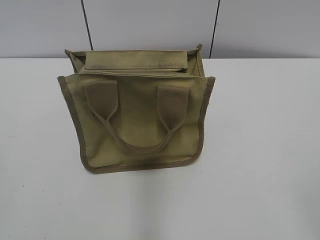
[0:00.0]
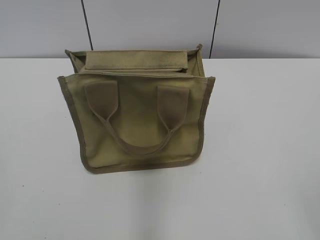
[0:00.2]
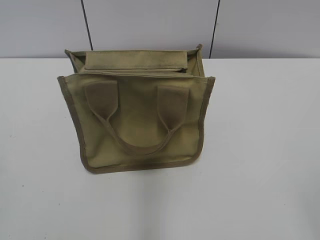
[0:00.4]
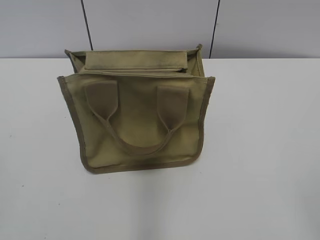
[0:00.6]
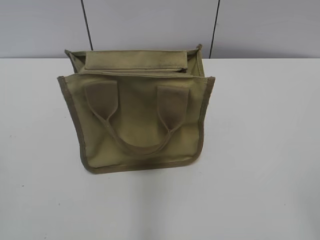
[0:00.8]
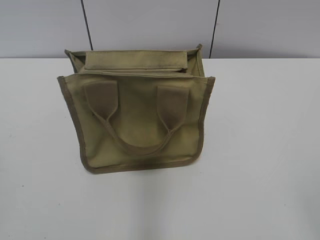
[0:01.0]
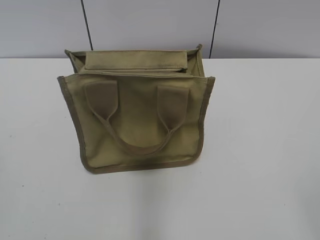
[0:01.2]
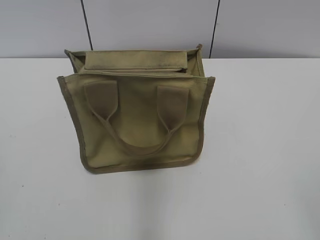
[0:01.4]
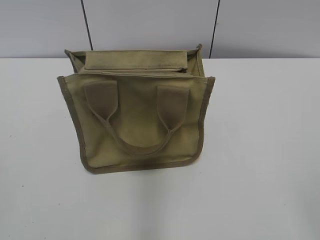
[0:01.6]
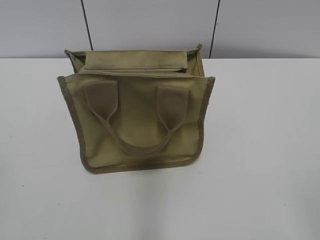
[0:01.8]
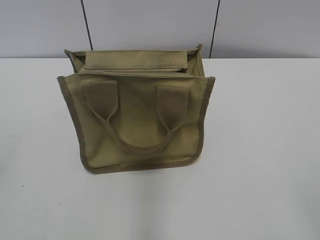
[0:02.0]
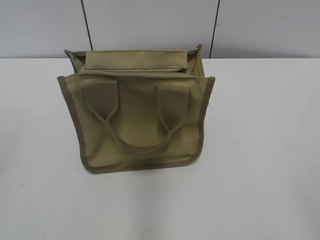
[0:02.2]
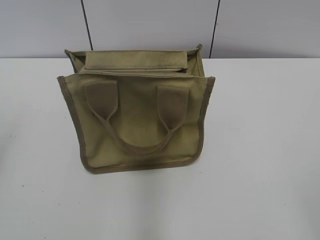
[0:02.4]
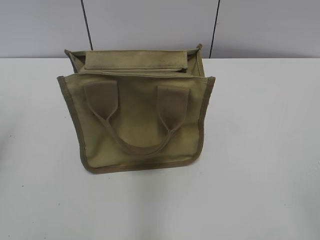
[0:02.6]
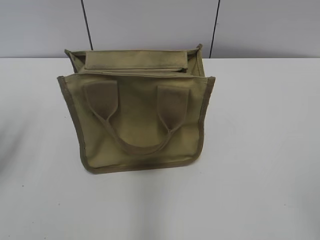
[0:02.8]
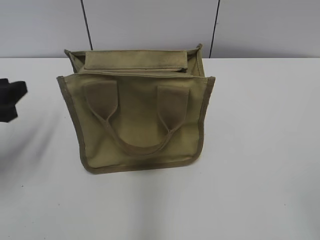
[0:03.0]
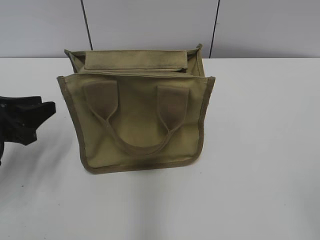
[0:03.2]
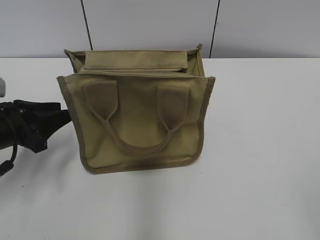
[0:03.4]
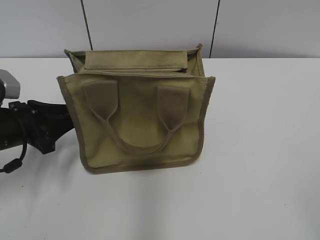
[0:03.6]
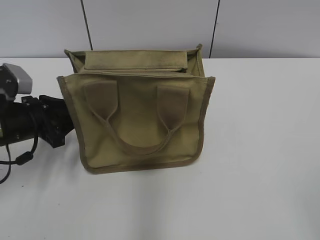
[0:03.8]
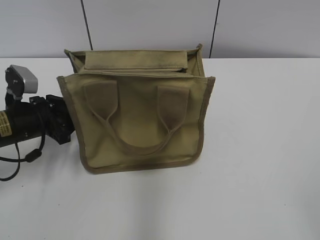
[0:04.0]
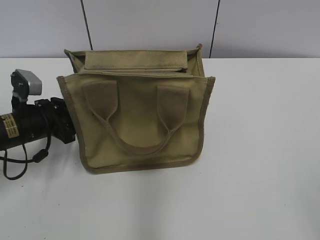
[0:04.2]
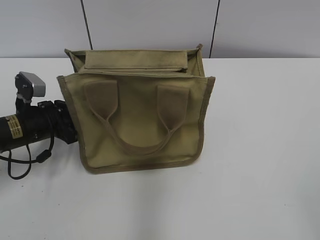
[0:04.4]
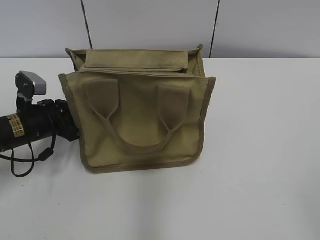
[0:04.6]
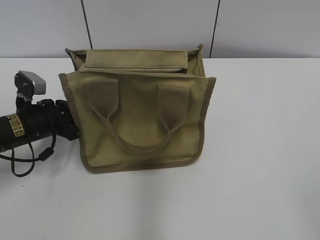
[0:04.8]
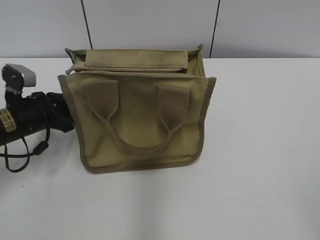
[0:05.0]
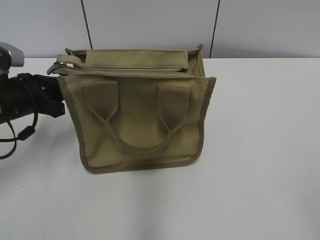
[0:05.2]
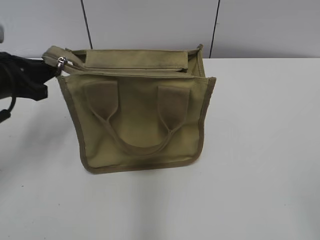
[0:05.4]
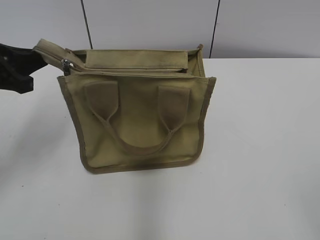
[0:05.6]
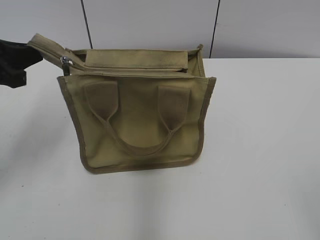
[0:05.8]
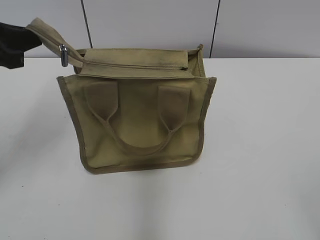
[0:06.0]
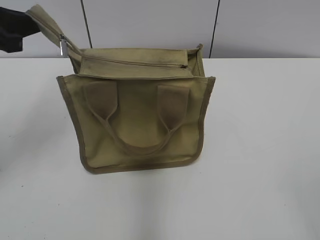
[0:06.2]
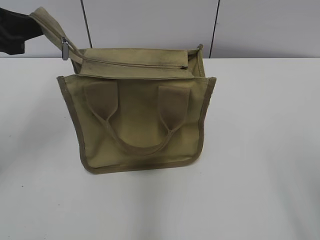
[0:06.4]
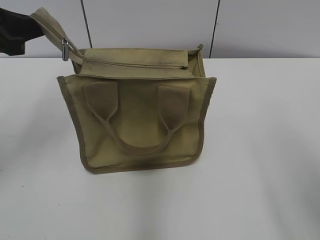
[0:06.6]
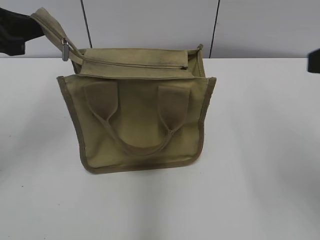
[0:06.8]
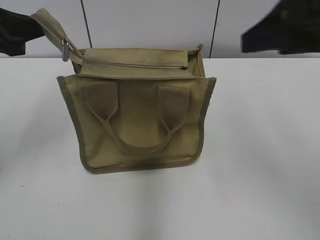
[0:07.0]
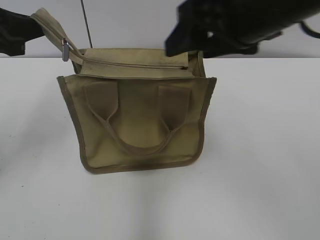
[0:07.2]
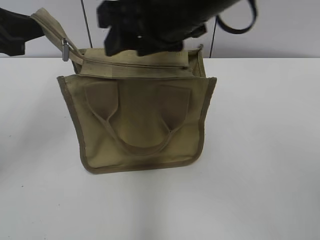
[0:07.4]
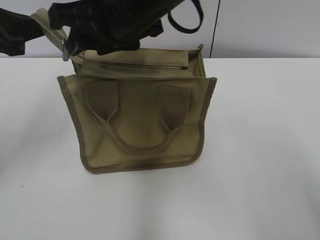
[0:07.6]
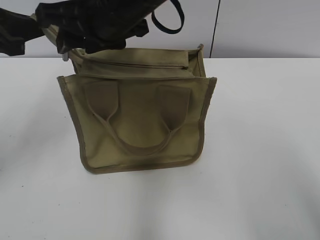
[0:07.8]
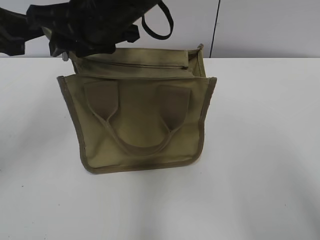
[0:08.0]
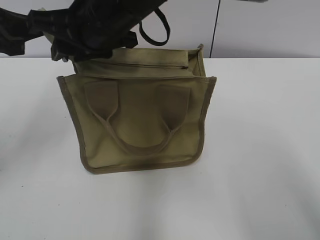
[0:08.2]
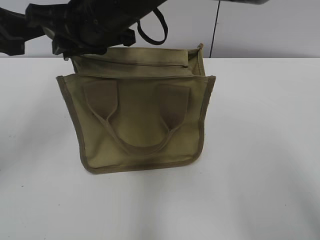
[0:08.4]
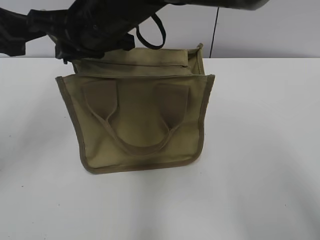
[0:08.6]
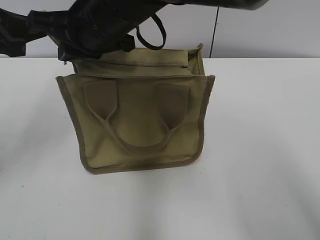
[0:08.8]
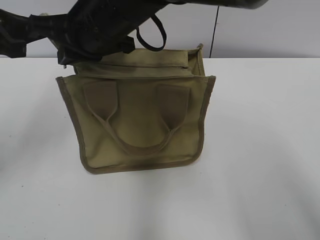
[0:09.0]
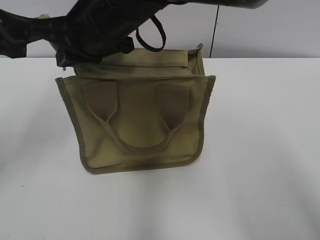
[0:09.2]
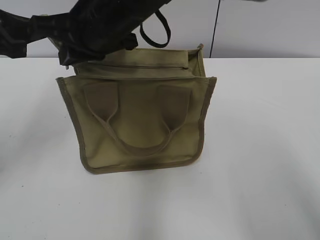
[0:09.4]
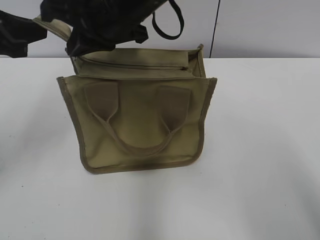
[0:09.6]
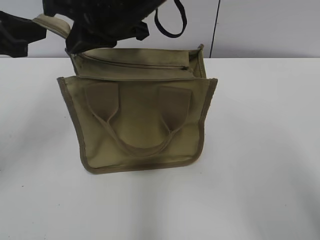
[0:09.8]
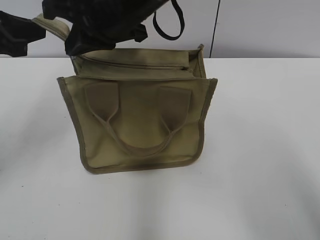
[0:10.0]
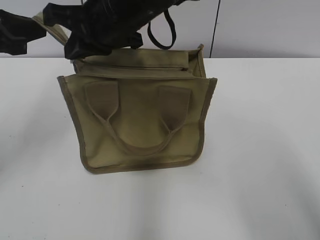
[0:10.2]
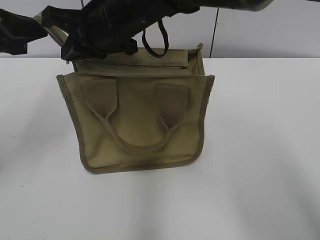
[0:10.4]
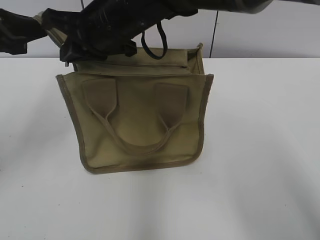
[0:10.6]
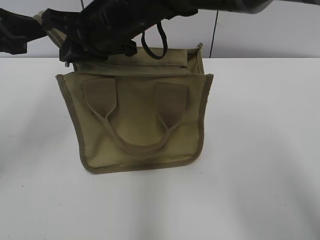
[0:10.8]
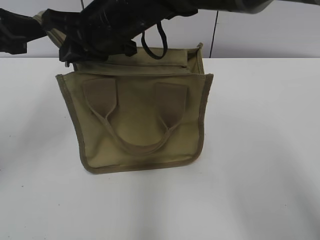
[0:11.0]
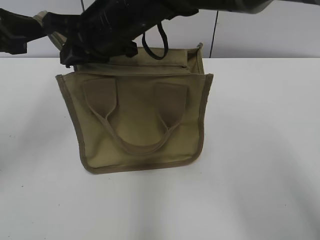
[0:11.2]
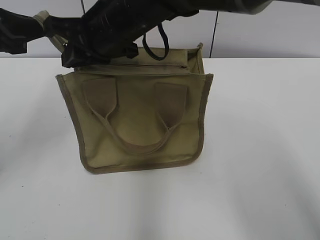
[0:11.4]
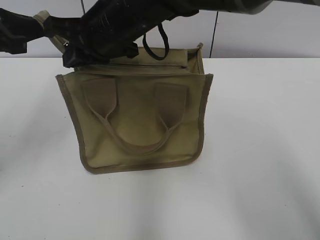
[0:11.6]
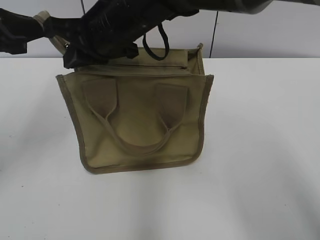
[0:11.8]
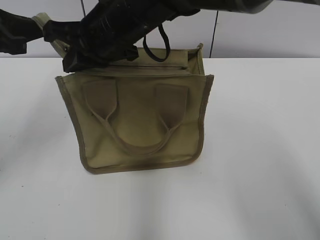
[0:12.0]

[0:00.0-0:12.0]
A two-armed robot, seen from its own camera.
0:01.6 to 0:03.0: The left gripper goes some 25 cm forward and downward, and opens, then closes once more.
0:03.0 to 0:04.4: The left gripper moves downward, forward and to the right, approximately 15 cm.
0:04.4 to 0:06.0: The left gripper heads upward, covering about 20 cm, and closes.
0:06.0 to 0:07.6: The right gripper shifts roughly 40 cm forward and to the left.
0:07.6 to 0:09.0: The right gripper changes place by about 5 cm, and closes its fingers.
0:09.0 to 0:12.0: The grippers stay close to where they were, moving slightly.

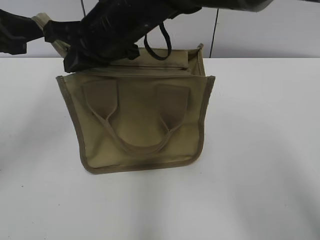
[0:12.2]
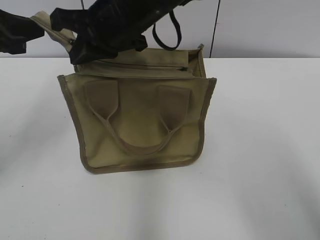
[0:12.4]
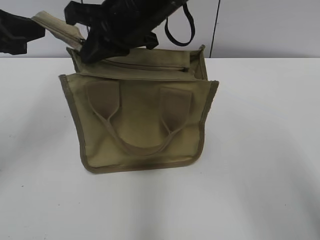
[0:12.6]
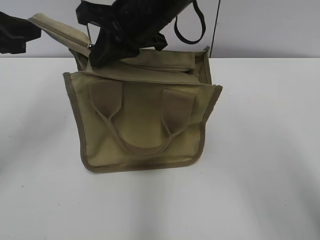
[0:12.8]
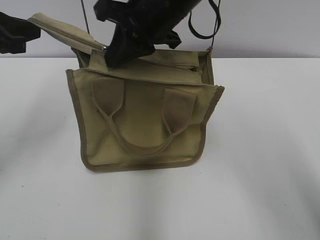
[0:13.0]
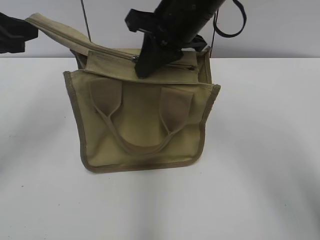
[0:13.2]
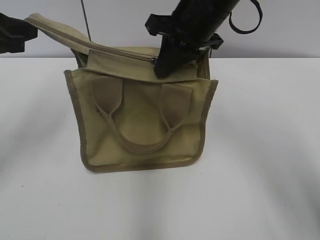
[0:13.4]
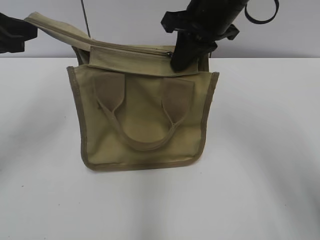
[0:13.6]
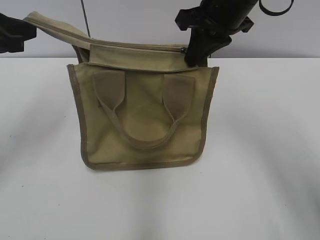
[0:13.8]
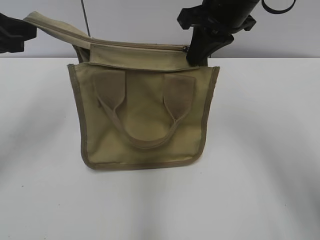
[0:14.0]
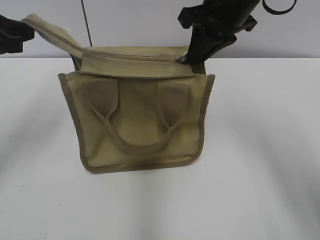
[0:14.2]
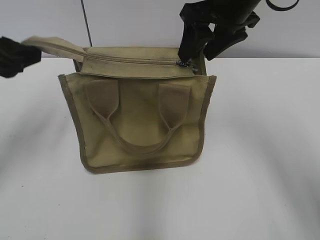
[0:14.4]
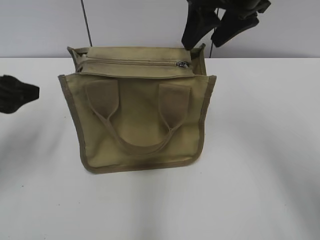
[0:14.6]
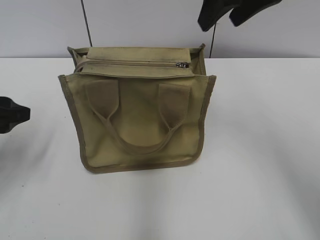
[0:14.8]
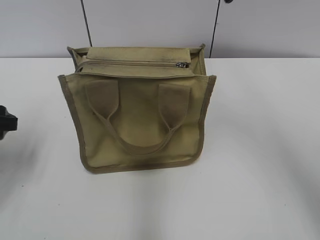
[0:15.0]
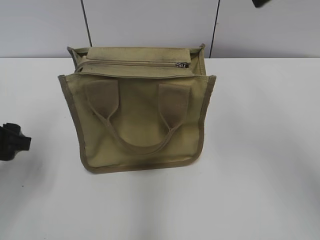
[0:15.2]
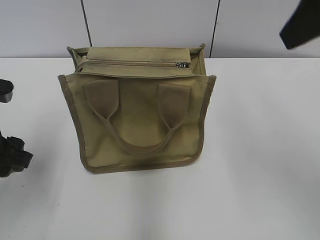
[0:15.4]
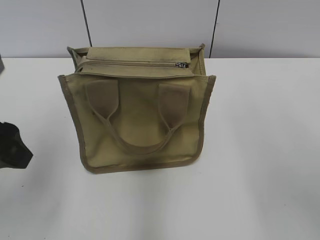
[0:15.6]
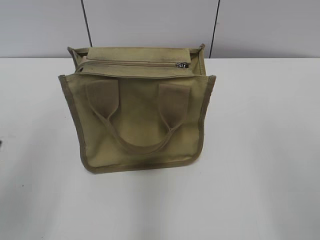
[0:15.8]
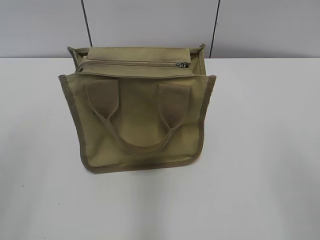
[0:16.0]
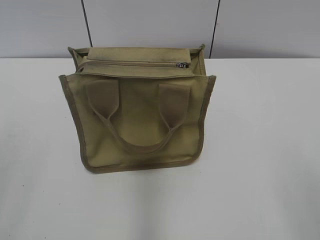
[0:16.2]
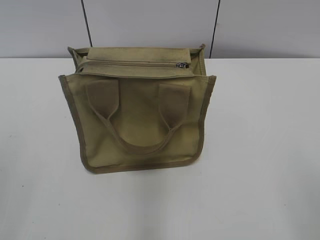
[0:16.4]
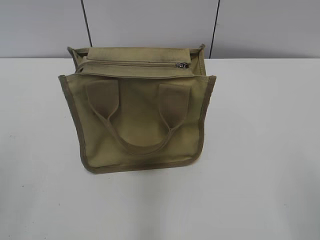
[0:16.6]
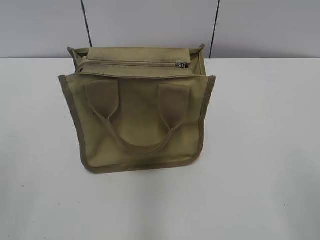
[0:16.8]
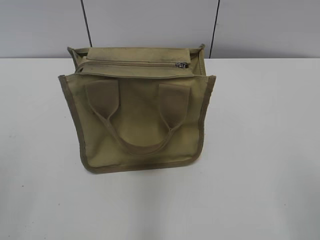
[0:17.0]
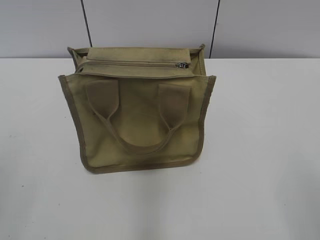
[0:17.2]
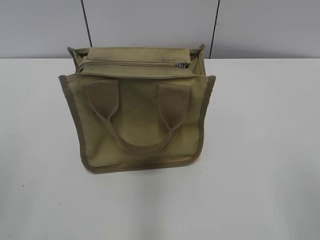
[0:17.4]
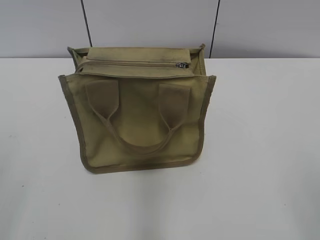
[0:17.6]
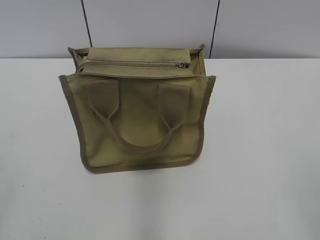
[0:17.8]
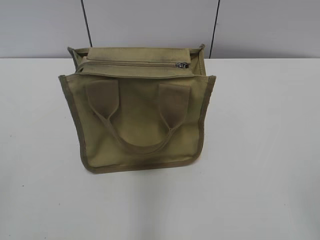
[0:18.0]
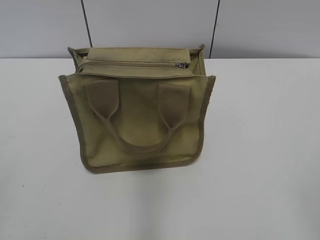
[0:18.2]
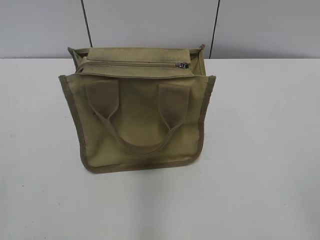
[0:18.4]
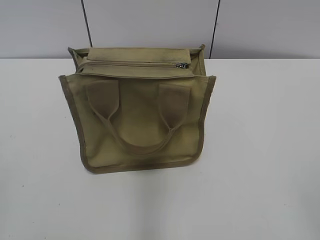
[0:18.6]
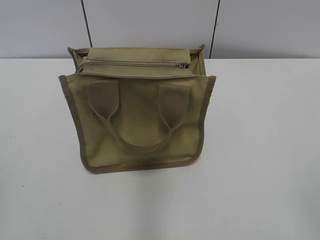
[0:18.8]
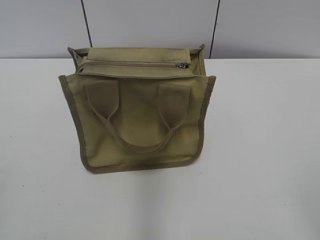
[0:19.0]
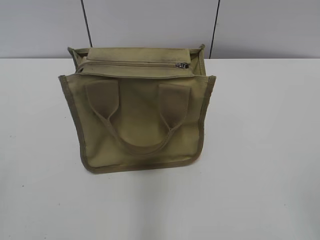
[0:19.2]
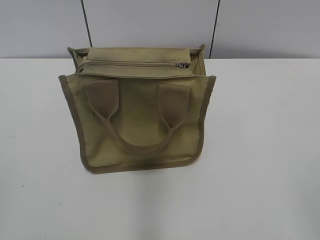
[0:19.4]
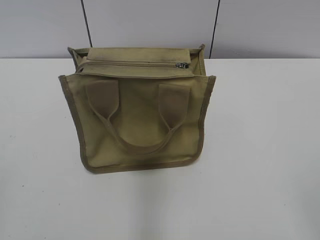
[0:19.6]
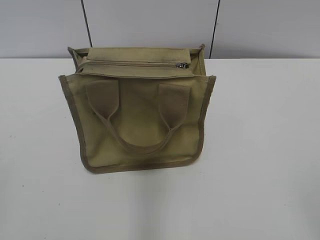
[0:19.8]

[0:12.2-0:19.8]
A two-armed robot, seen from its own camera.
Step, 0:12.2 to 0:14.2: Zip up the bag with your right hand.
Step, 0:14.4 to 0:14.6: Grab the zipper with your left hand.
0:12.2 to 0:13.8: The right gripper heads to the right, covering about 15 cm.
0:13.8 to 0:15.2: The left gripper heads downward and backward, covering some 10 cm, and opens. Meanwhile the right gripper is displaced upward, backward and to the right by some 15 cm, and opens its fingers.
0:15.2 to 0:16.8: The left gripper goes some 20 cm backward and upward.
0:18.2 to 0:19.8: Both grippers stay put.
